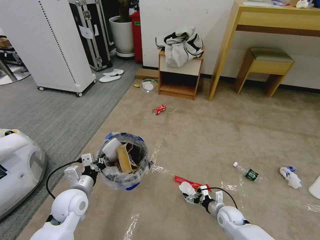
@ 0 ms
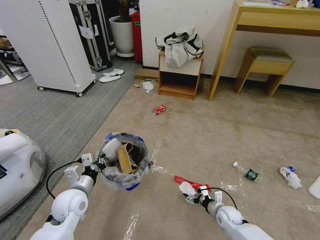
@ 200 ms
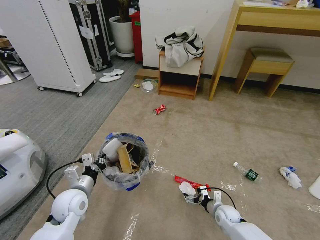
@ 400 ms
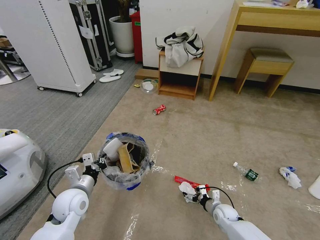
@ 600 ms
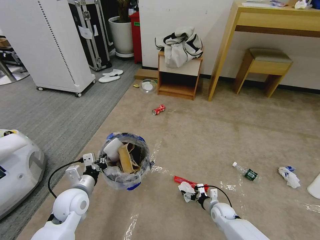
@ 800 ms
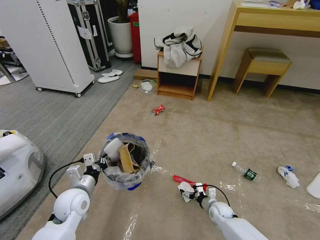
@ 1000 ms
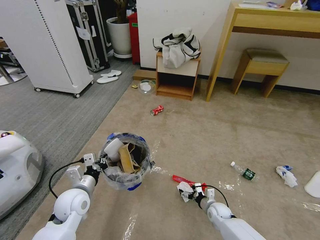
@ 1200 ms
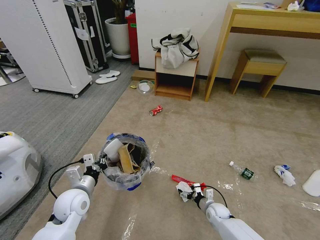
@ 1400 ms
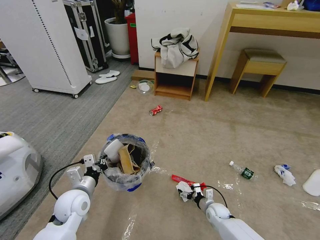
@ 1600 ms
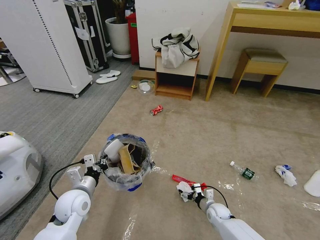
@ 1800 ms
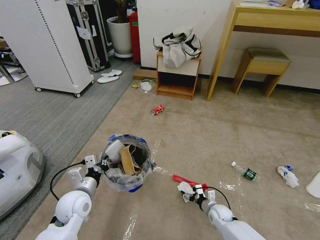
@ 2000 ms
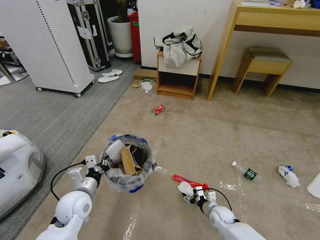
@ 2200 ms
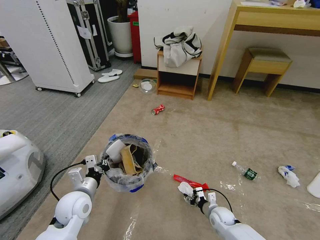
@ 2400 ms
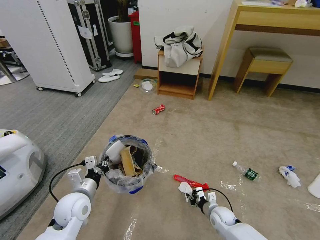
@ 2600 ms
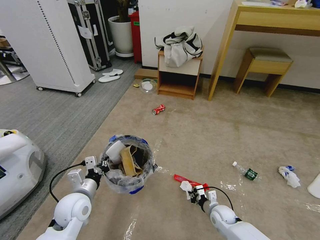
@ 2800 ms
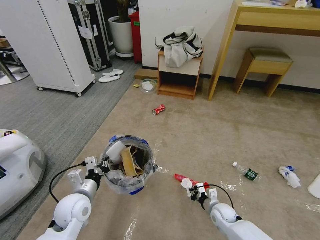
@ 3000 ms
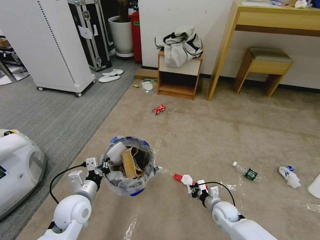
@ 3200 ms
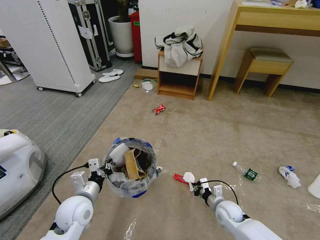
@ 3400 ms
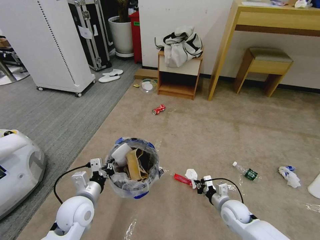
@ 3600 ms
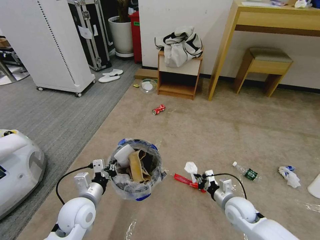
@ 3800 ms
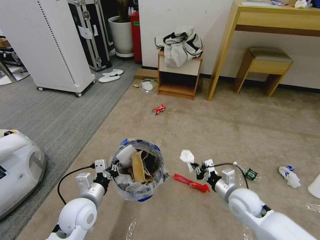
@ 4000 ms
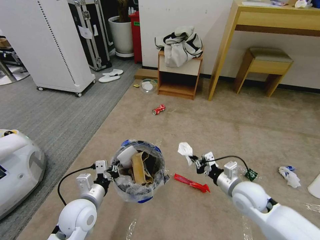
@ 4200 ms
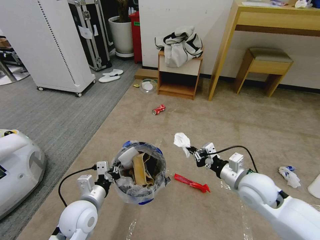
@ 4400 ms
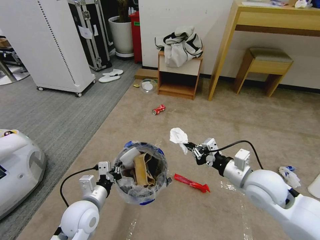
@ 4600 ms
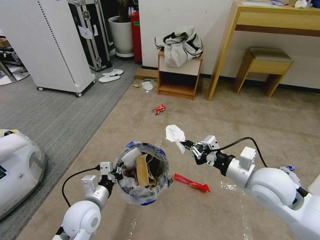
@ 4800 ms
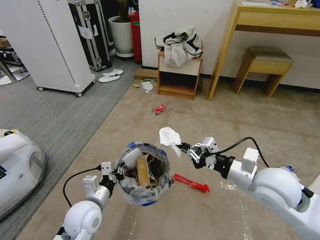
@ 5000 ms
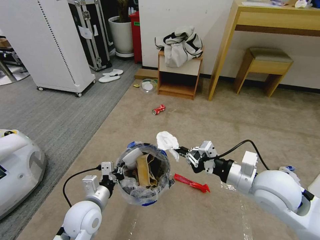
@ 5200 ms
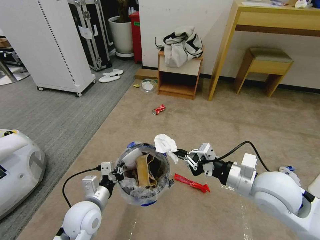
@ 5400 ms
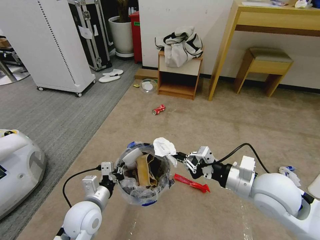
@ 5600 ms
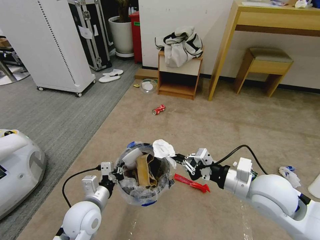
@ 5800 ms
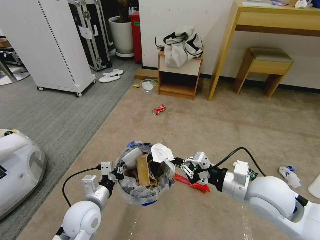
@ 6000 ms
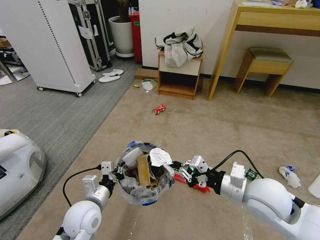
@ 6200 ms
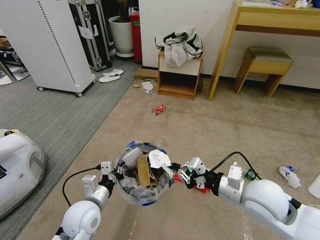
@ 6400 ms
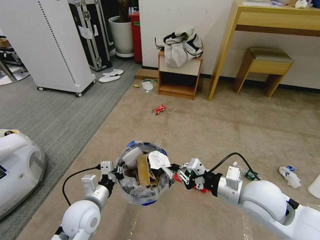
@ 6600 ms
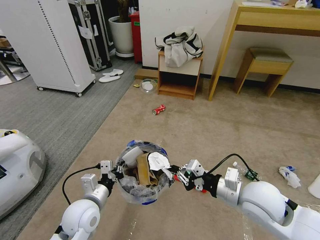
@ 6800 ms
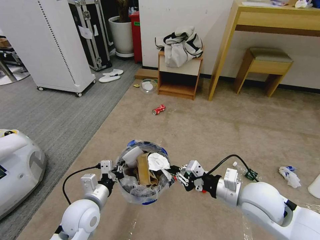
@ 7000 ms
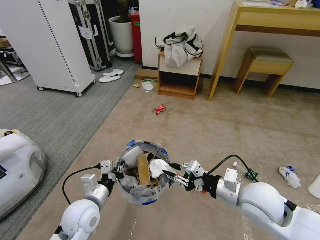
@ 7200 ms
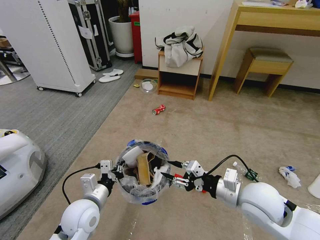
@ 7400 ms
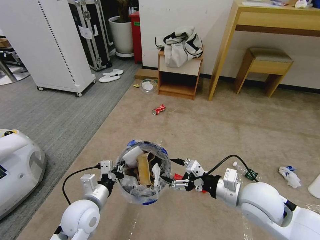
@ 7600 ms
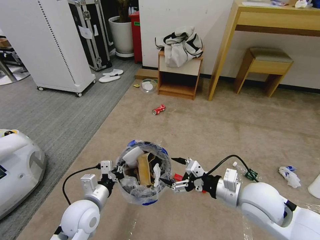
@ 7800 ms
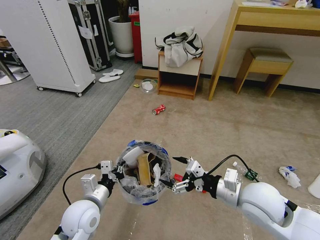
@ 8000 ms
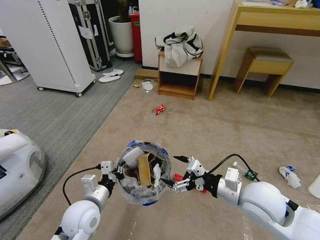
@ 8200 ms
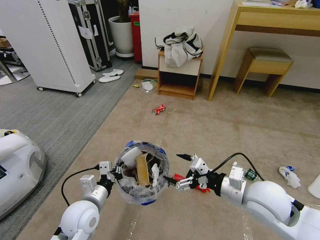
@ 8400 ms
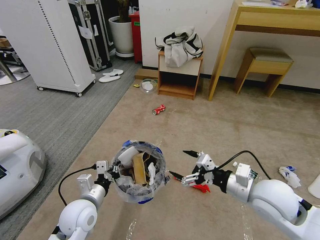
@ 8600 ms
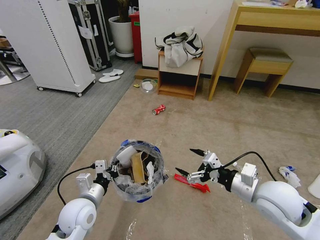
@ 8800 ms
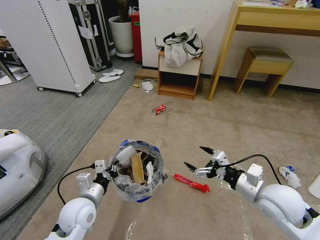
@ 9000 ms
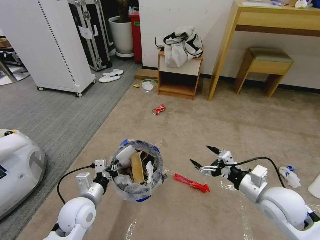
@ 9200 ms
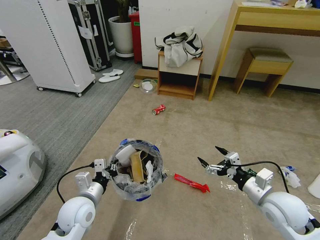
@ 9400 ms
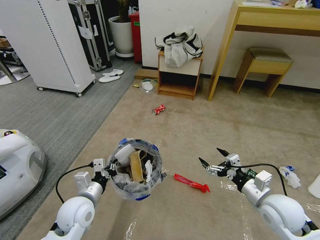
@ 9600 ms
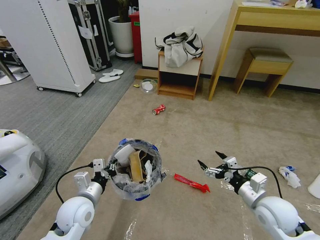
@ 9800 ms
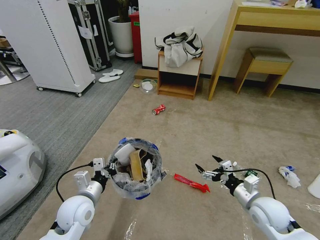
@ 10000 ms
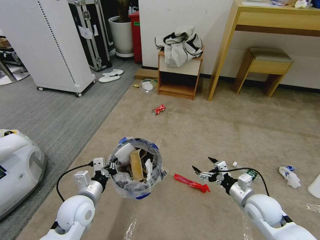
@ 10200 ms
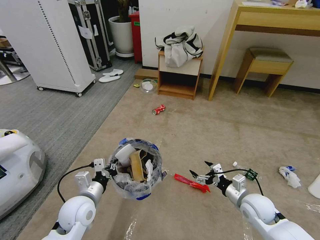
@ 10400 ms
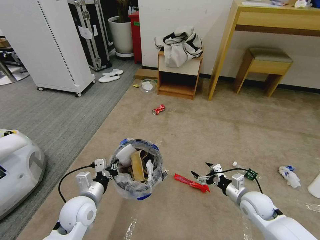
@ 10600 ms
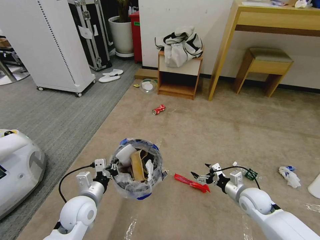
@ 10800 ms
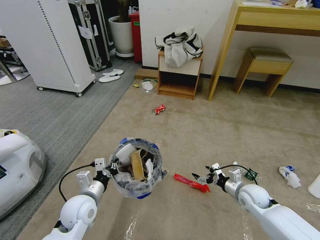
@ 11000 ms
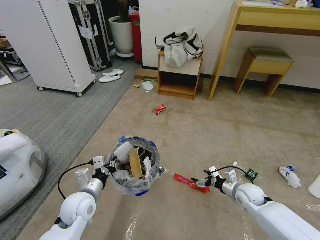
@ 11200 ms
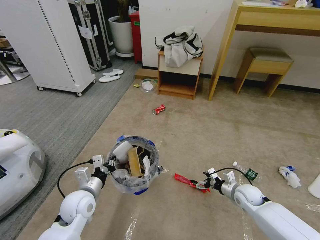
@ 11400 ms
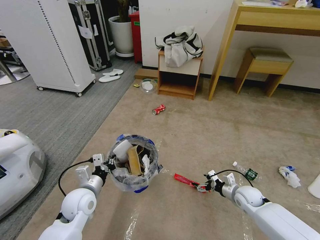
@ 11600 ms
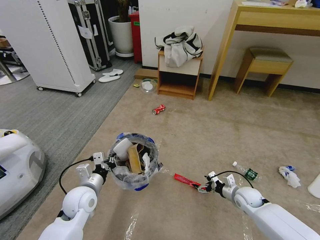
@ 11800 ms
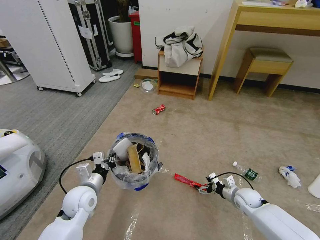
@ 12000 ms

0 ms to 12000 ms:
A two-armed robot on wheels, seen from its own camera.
Task of the whole recording: Pick up the trash bin and place the garbage on the floor into it.
0 ms to 1600 ms: The right gripper ends up some 5 cm from where it was.
1600 ms to 3000 ms: The right gripper goes about 5 cm upward, and closes its fingers.
3000 ms to 4400 ms: The right gripper is displaced upward by about 25 cm.
4400 ms to 6000 ms: The right gripper moves upward, some 10 cm.
6000 ms to 7600 ms: The right gripper opens its fingers.
7600 ms to 9000 ms: The right gripper is displaced to the right by approximately 5 cm.
9000 ms to 10400 ms: The right gripper is displaced downward by some 15 cm.
10400 ms to 12000 ms: The right gripper moves downward and forward, approximately 10 cm.

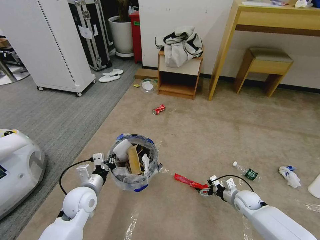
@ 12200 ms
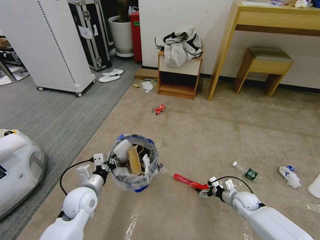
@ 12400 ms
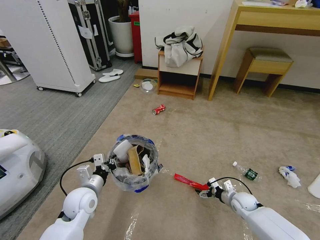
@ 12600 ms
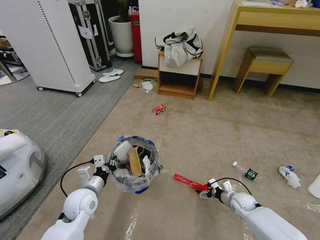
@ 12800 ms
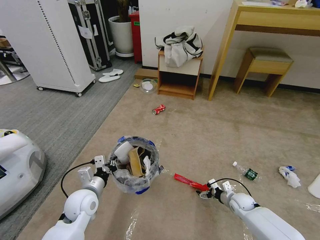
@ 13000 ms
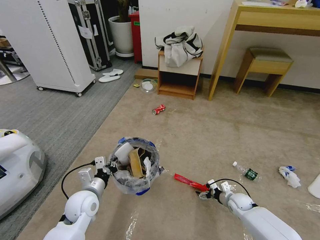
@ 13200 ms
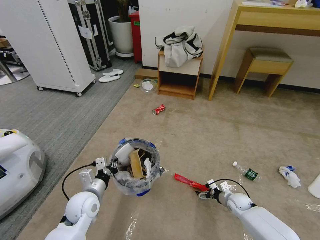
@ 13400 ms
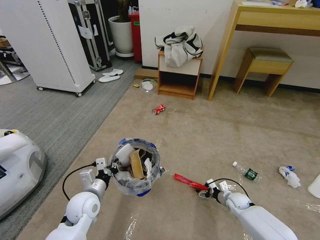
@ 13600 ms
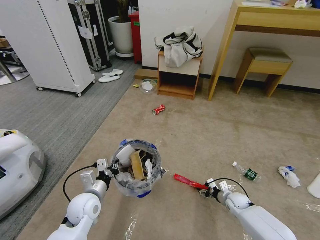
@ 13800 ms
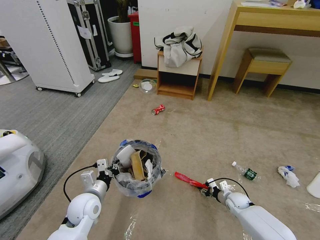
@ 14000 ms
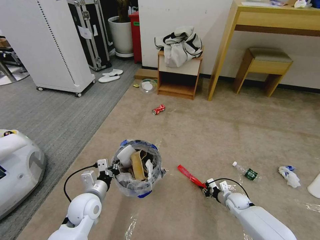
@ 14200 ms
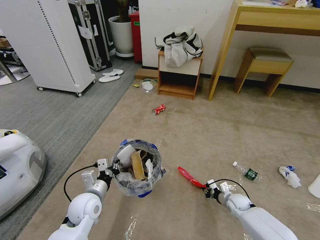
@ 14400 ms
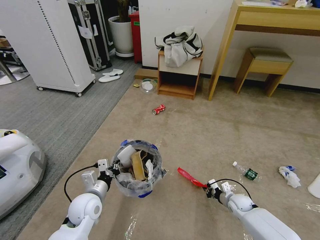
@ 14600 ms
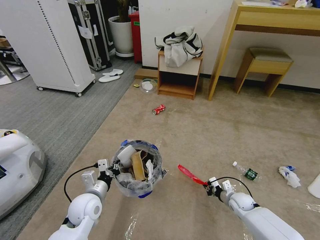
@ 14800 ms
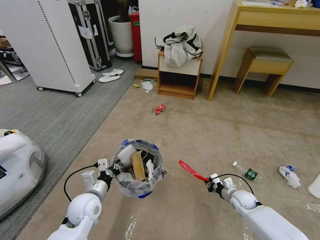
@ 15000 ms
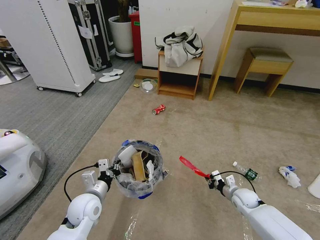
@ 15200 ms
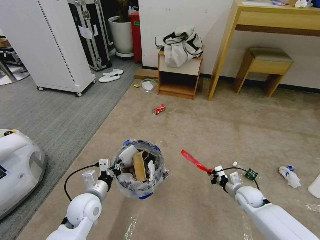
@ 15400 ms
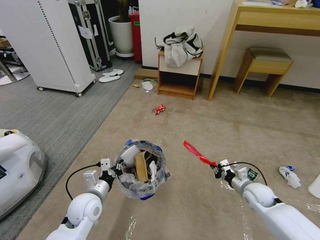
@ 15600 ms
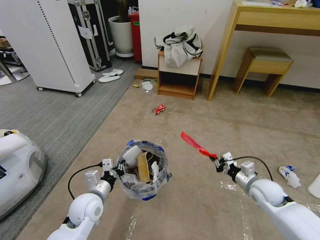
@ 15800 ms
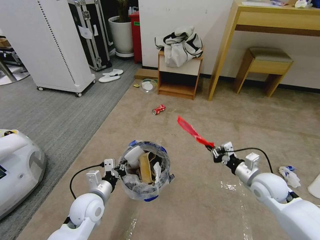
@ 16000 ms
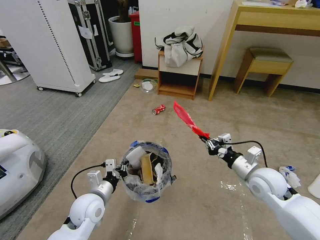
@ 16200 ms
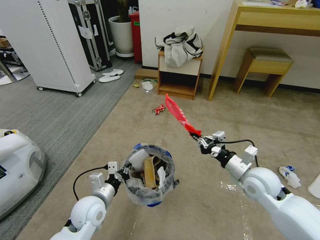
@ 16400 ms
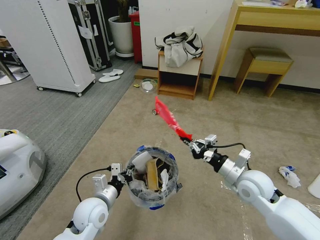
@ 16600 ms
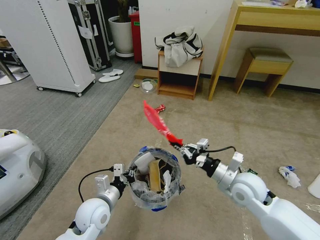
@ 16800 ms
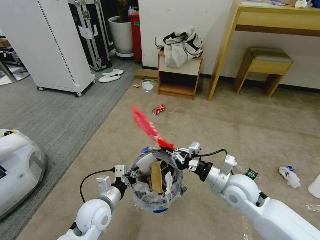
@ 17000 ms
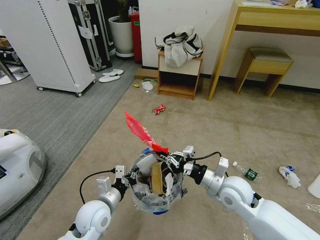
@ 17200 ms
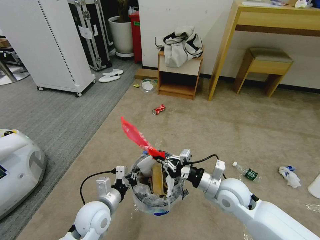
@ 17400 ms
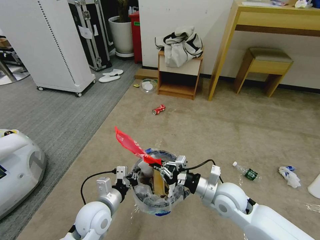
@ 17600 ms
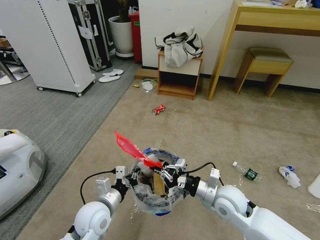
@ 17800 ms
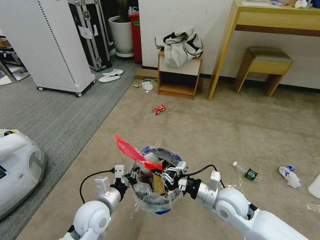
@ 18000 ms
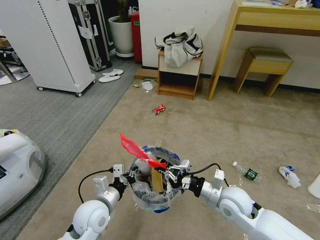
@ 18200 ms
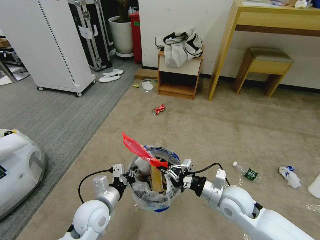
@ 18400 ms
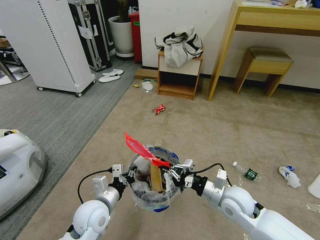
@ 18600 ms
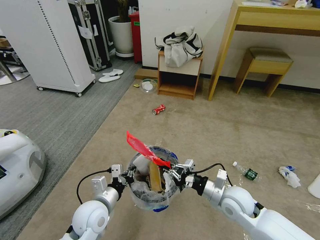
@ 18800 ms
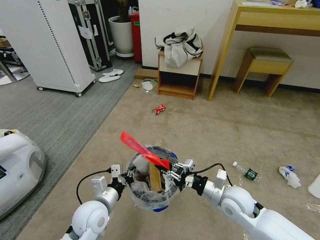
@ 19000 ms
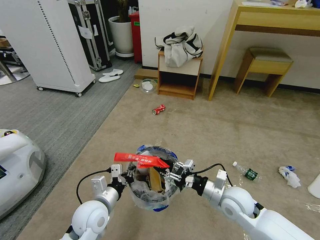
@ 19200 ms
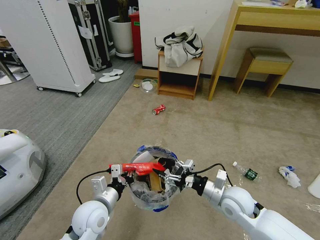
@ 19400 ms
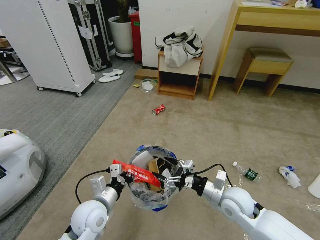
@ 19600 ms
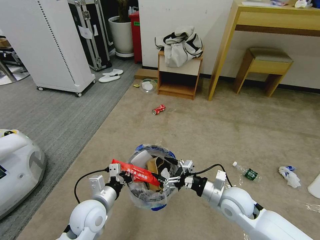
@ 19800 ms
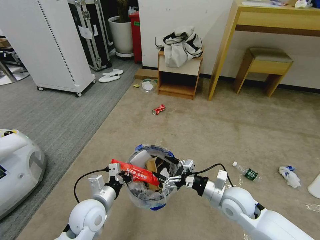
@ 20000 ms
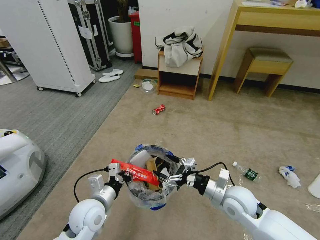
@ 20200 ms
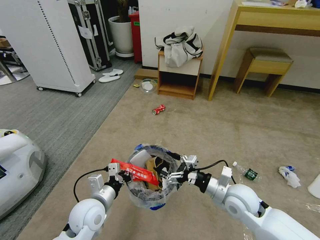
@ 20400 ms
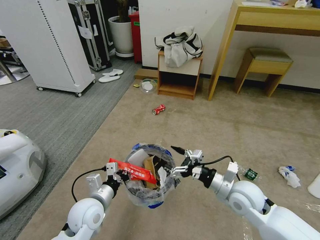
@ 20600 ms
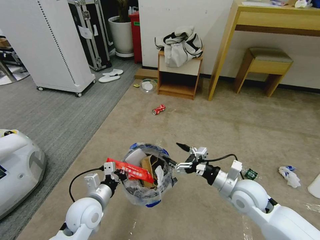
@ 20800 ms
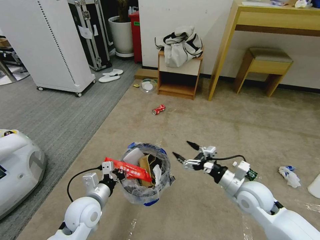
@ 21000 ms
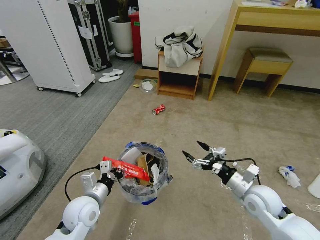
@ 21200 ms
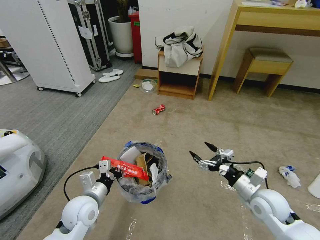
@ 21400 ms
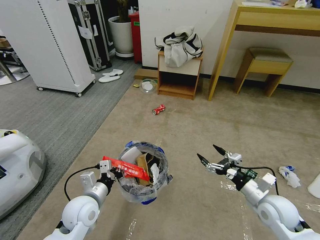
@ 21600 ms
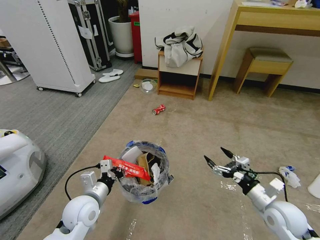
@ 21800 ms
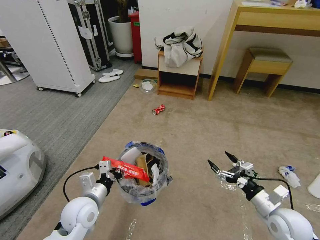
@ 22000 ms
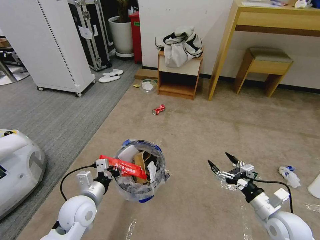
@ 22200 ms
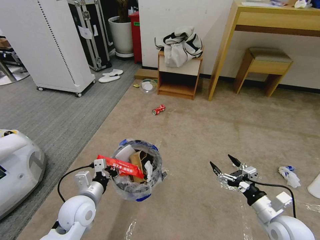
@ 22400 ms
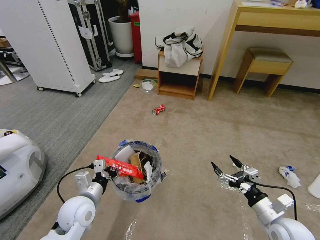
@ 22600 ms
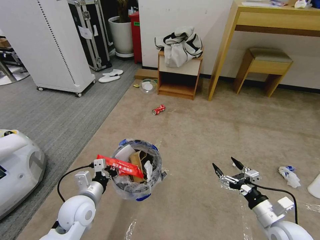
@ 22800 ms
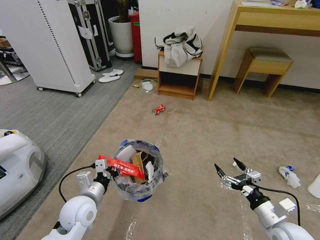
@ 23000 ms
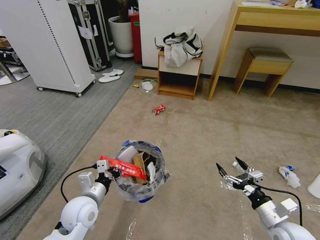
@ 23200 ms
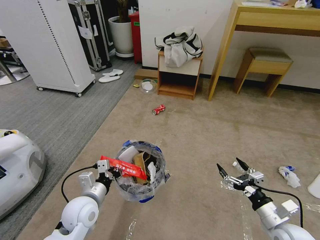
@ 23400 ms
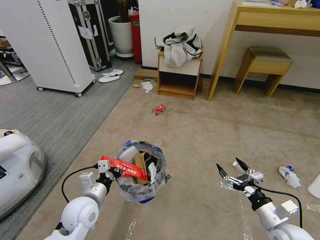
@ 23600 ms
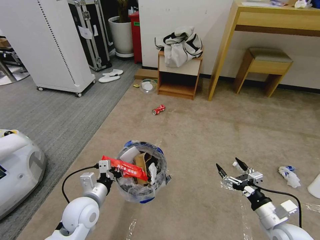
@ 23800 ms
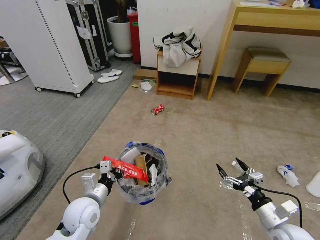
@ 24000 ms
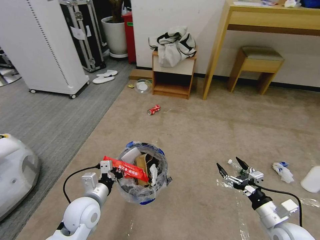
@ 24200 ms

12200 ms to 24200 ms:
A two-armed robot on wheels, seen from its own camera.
Task of the whole recording: Pick up the trash bin and place the garbage on the floor into it.
12200 ms to 13800 ms: The right gripper moves downward, approximately 5 cm, and closes its fingers.
13800 ms to 15200 ms: The right gripper moves upward, some 5 cm, and closes its fingers.
15200 ms to 16600 ms: The right gripper is displaced upward by approximately 20 cm.
16600 ms to 18200 ms: The right gripper goes some 5 cm to the left.
18200 ms to 19800 ms: The right gripper opens.
19800 ms to 21200 ms: The right gripper travels to the right by approximately 5 cm.
21200 ms to 22600 ms: The right gripper travels backward and to the right by some 10 cm.
